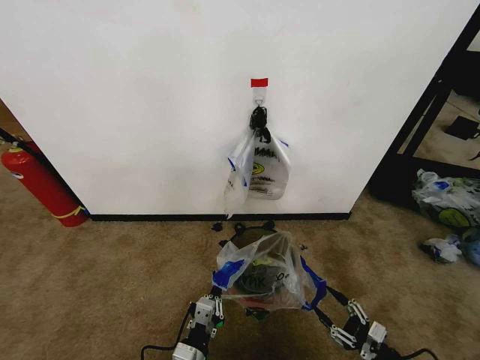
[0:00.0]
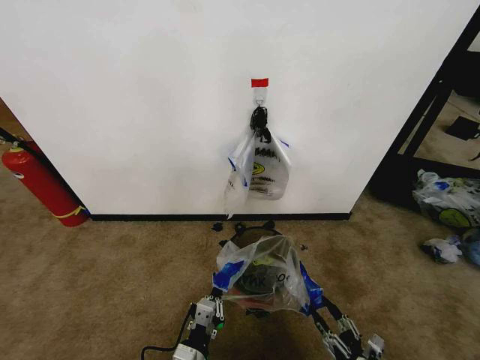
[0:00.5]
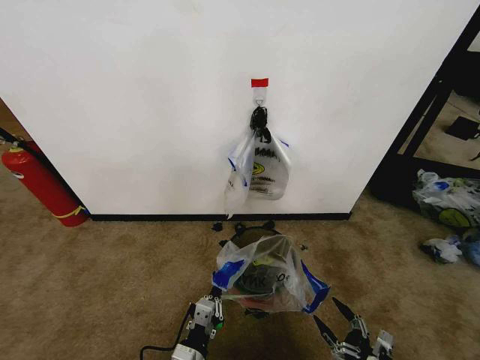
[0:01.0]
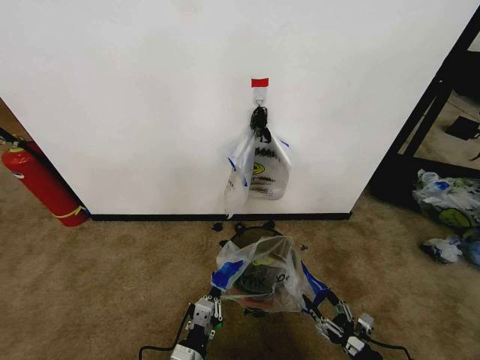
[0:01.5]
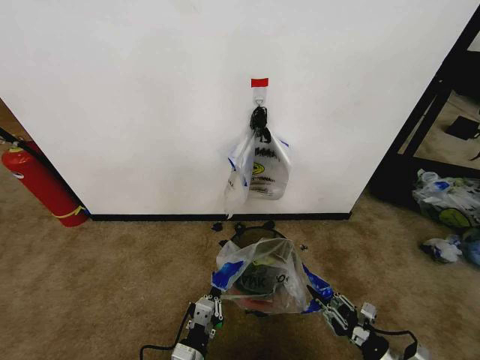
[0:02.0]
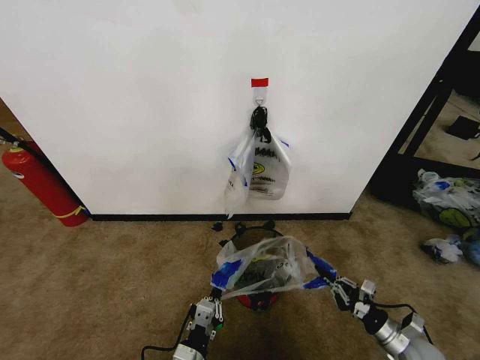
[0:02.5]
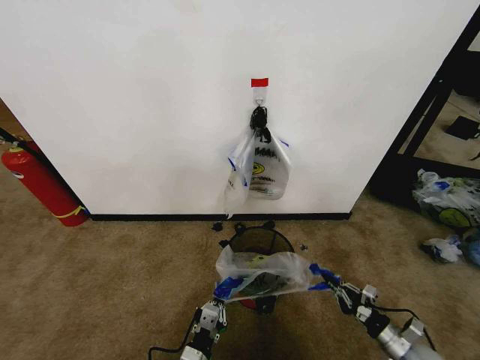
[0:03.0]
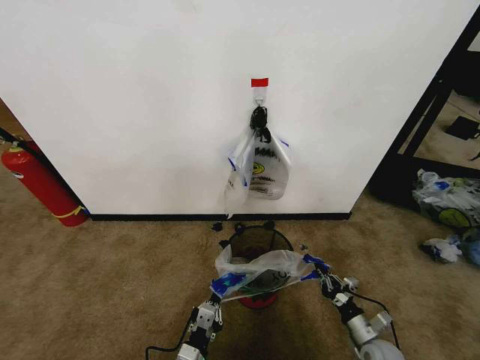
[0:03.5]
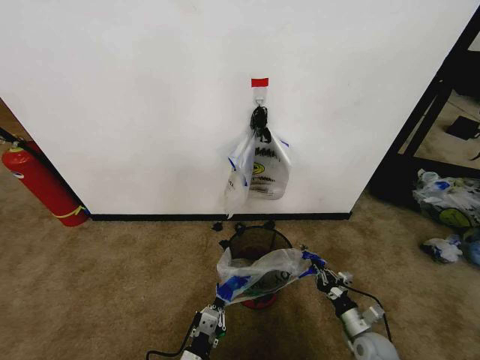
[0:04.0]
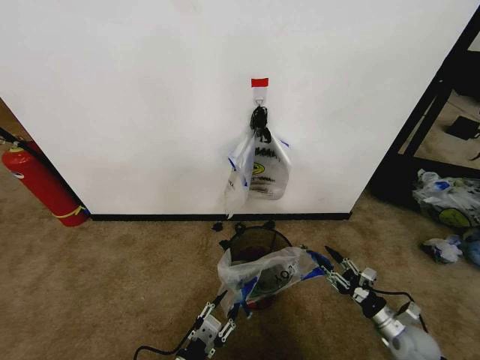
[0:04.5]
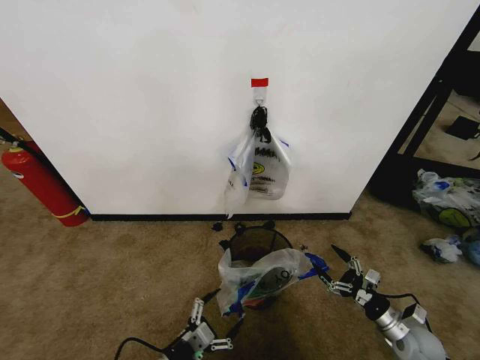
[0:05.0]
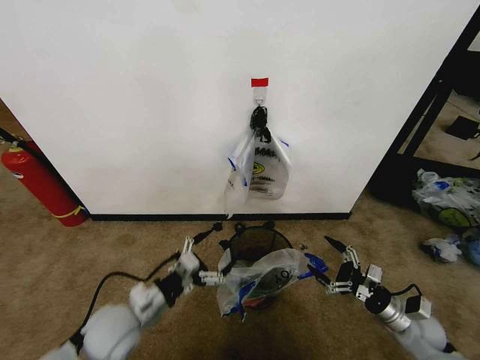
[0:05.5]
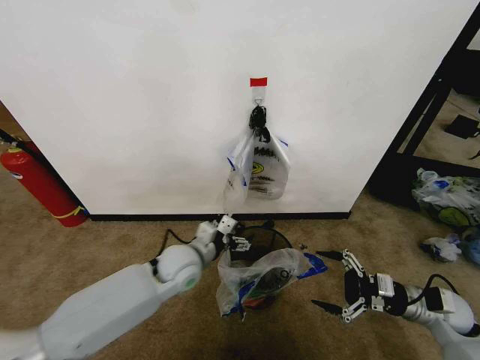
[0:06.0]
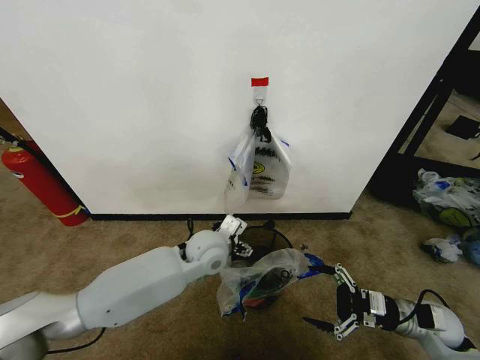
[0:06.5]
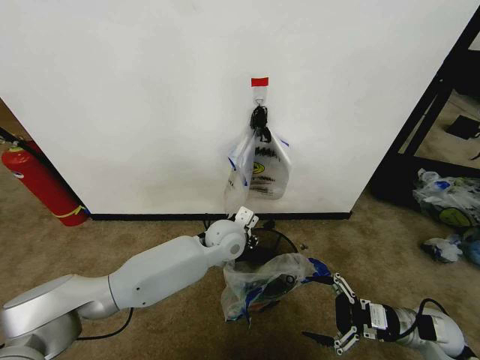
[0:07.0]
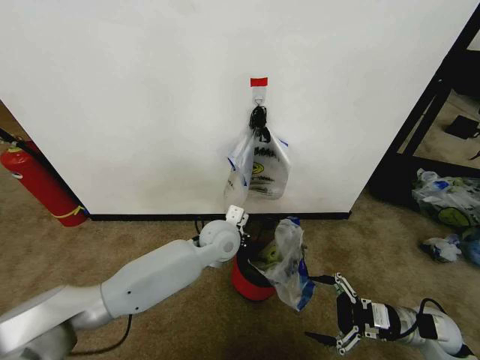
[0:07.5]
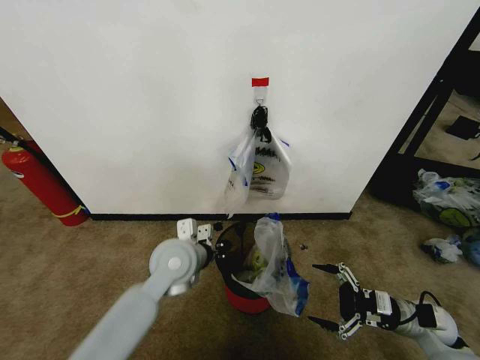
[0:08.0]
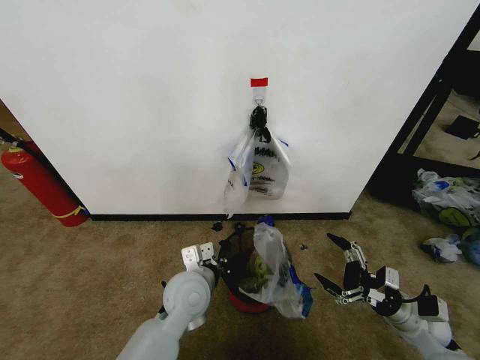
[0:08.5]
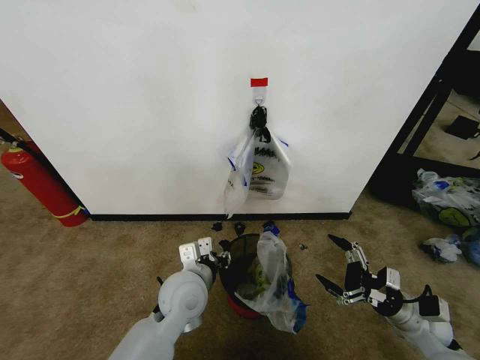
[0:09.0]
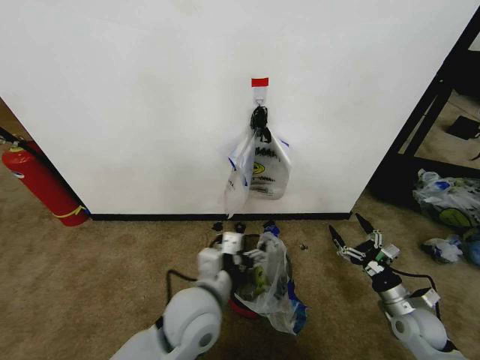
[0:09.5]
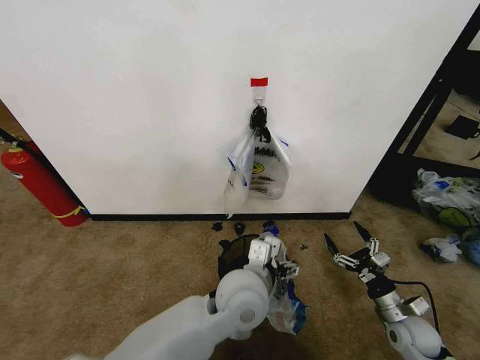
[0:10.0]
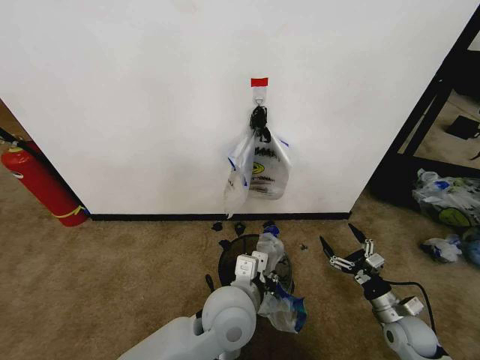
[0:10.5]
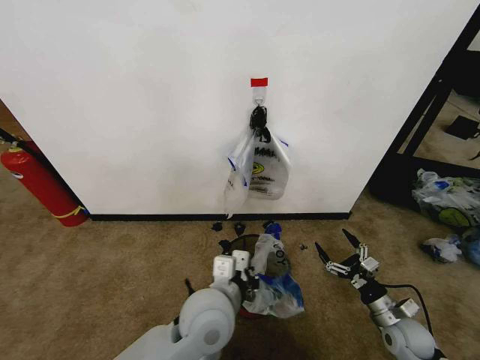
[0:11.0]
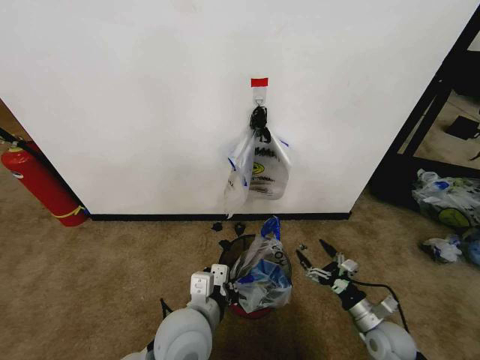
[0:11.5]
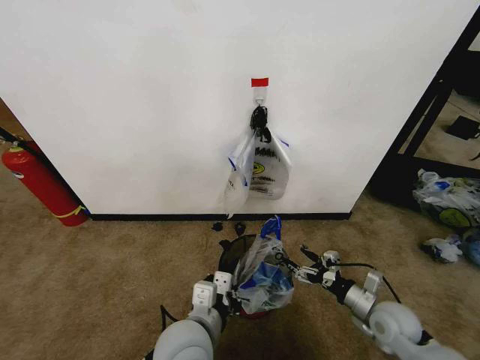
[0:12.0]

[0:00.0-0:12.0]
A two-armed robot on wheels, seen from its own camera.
Task of the whole recording: Pick up the garbage bag from the wall and place it over the trash bin.
0:00.0 to 0:02.0: The right gripper closes its fingers.
0:02.0 to 0:04.0: The right gripper moves forward and downward, approximately 10 cm.
0:04.0 to 0:06.0: The left gripper is displaced forward and upward by roughly 30 cm, and opens its fingers; the right gripper moves upward and to the right, approximately 20 cm, and opens up.
0:06.0 to 0:08.0: The left gripper shifts roughly 5 cm upward, travels to the right and back again, about 10 cm each way, and closes up.
0:08.0 to 0:10.0: The right gripper changes place by about 5 cm, while the left gripper is displaced to the right and backward by approximately 15 cm, and opens up.
0:10.0 to 0:12.0: The left gripper moves to the left and backward, about 10 cm, and closes; the right gripper moves to the left, approximately 5 cm.

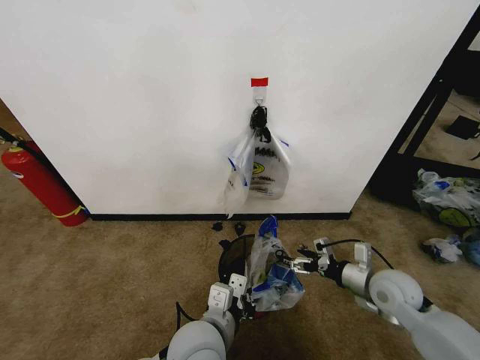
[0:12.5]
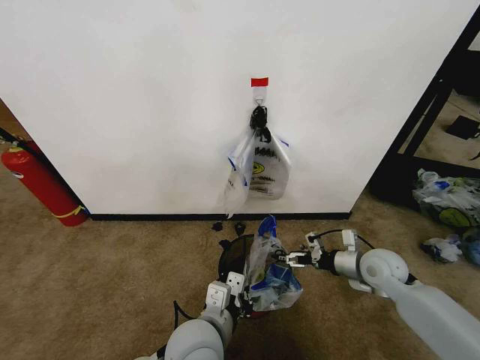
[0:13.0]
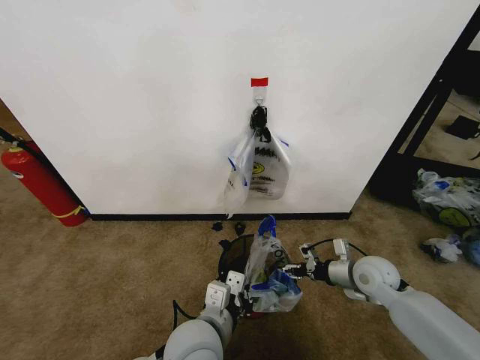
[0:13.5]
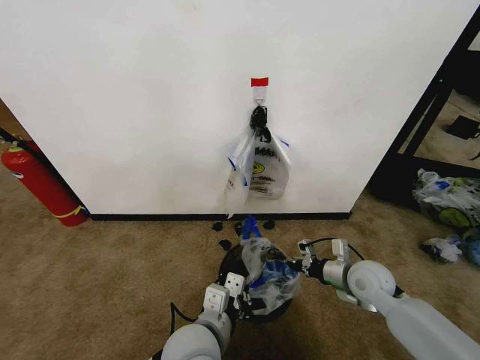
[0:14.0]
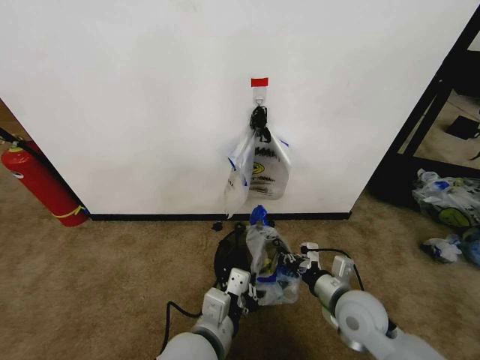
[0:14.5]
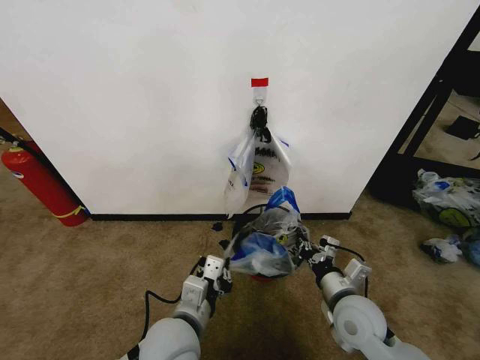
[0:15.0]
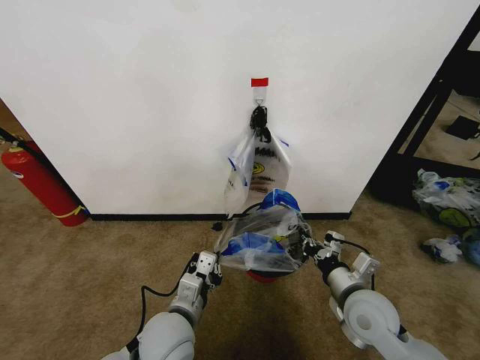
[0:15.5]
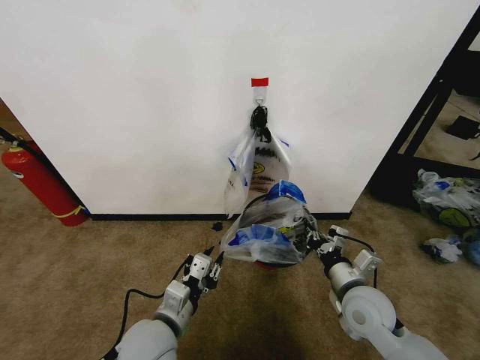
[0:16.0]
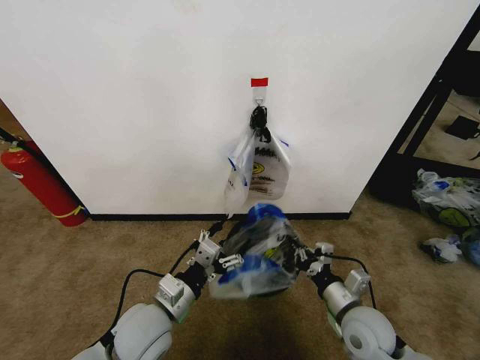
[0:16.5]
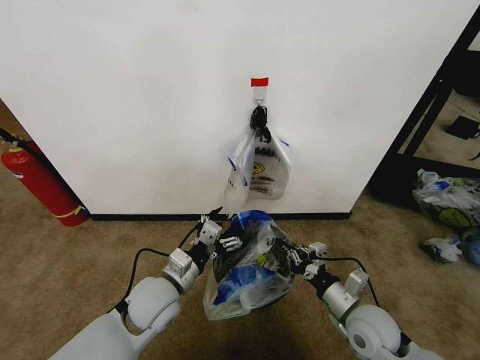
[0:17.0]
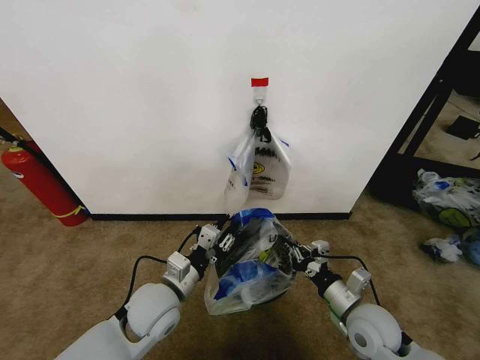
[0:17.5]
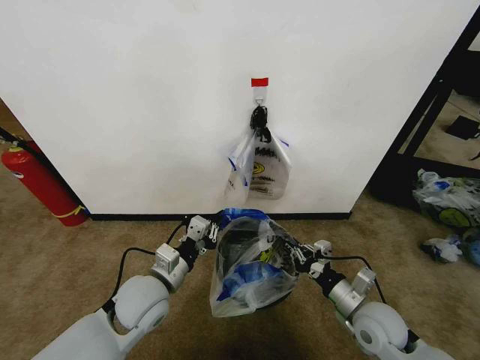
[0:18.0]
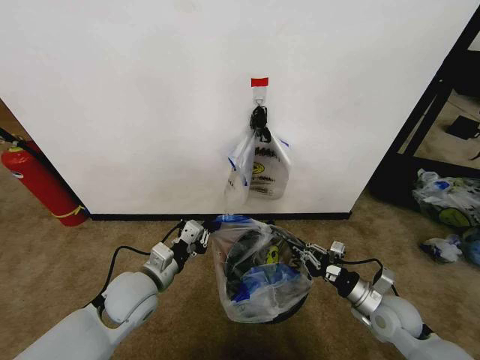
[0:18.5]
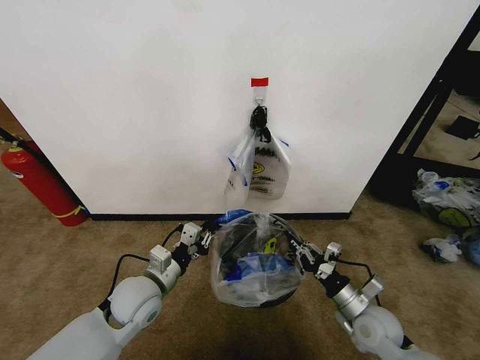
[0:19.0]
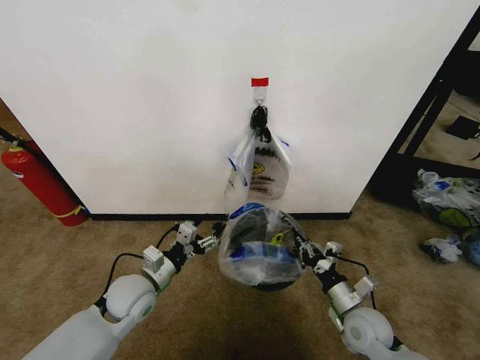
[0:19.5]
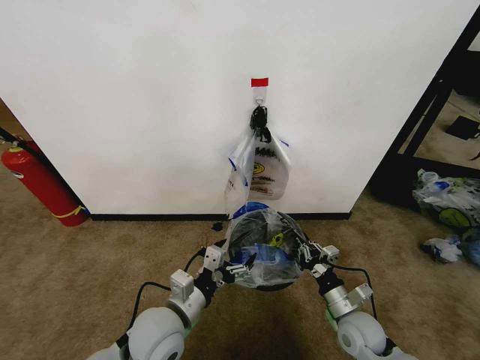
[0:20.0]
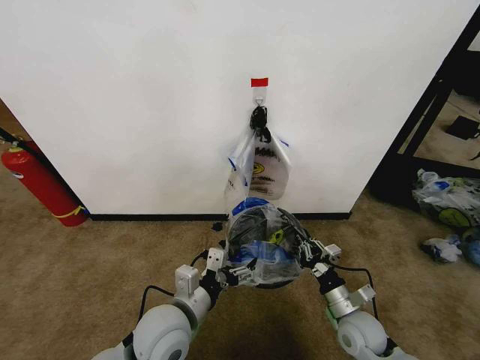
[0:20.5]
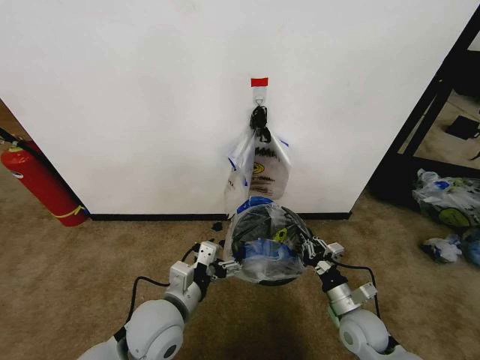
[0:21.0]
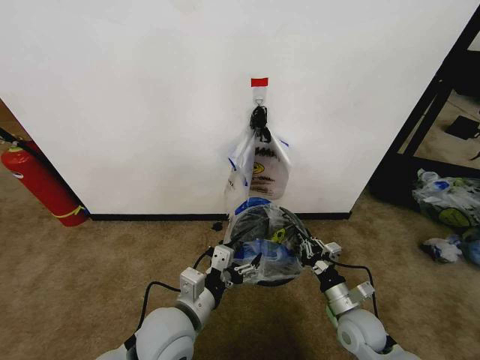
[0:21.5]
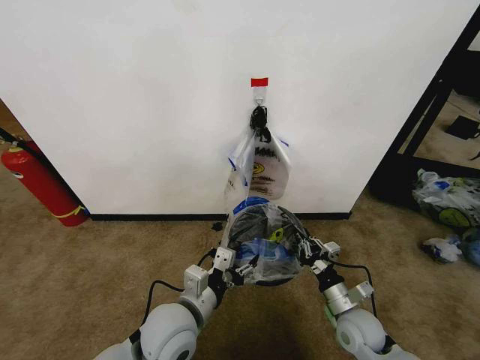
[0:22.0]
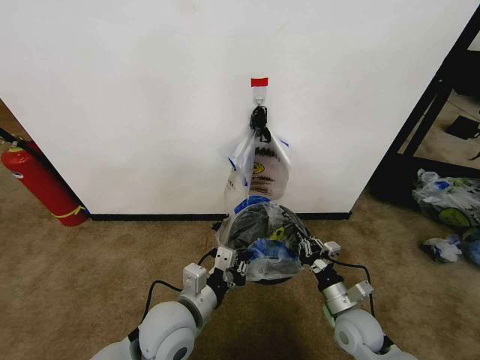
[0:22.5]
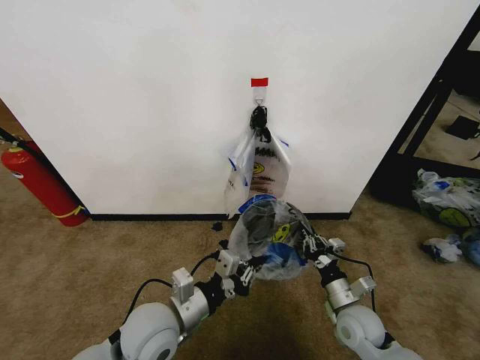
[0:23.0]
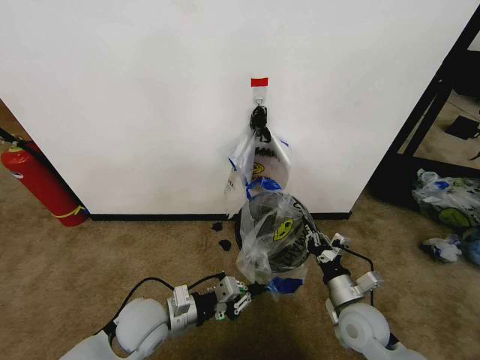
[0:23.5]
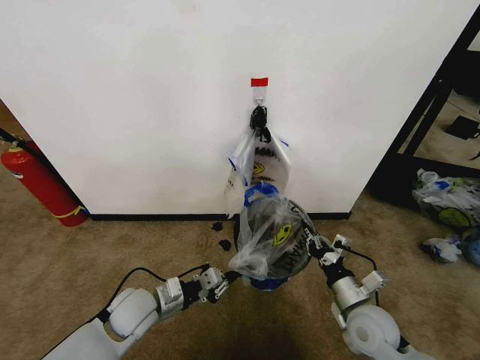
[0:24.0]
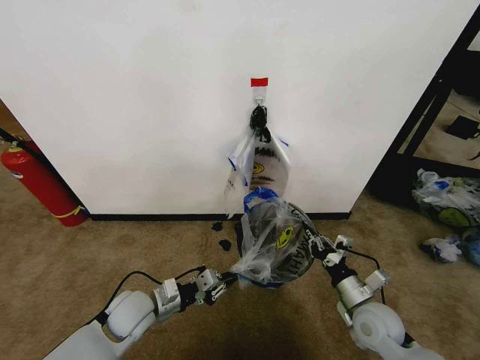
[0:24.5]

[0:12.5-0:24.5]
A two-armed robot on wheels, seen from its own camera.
Task of the whole recording: Pick up the garbage bag from the wall and place it over the trash bin.
0:12.5 to 0:14.5: The right gripper travels to the left by roughly 10 cm, and closes its fingers.
0:14.5 to 0:16.5: The left gripper heads to the left and forward, covering some 10 cm, and opens.
0:16.5 to 0:18.5: The left gripper heads forward, covering some 5 cm, and closes, while the right gripper travels to the right by roughly 10 cm.
0:18.5 to 0:20.5: The left gripper goes roughly 10 cm to the right and backward, and opens up; the right gripper heads to the left, covering approximately 5 cm.
0:20.5 to 0:22.5: The left gripper closes.
0:22.5 to 0:24.5: The left gripper is displaced to the left, downward and forward by approximately 15 cm.

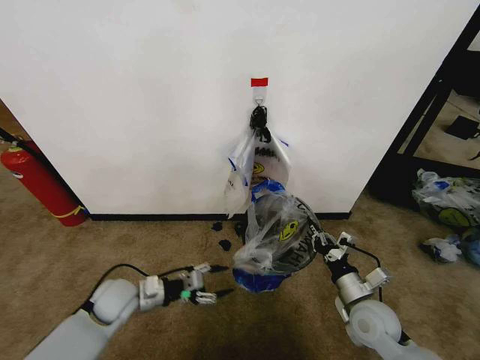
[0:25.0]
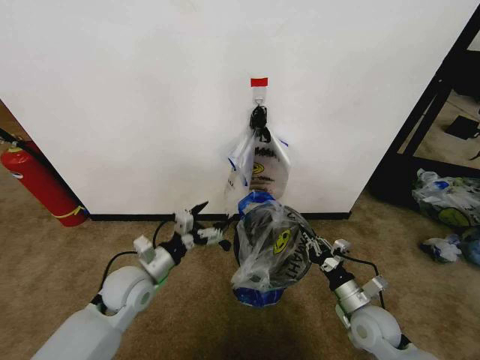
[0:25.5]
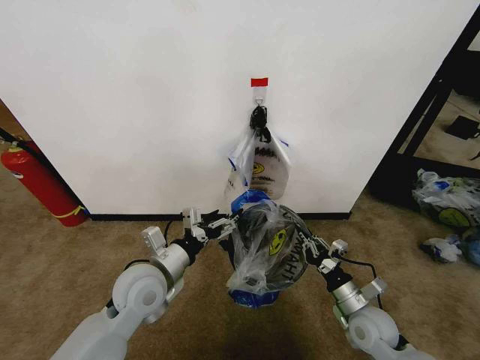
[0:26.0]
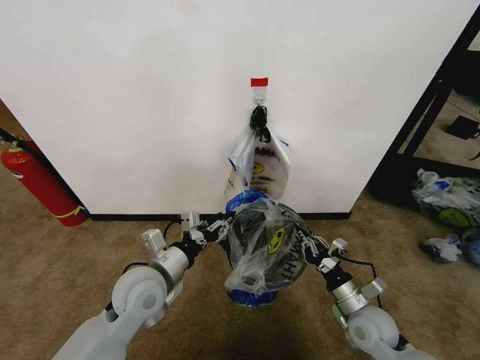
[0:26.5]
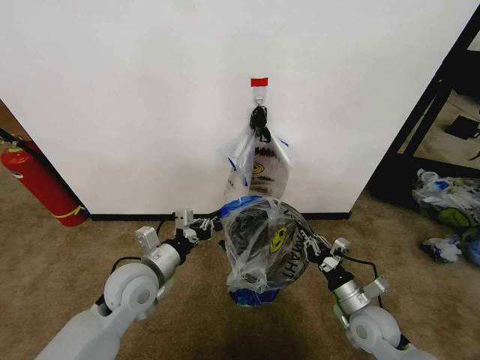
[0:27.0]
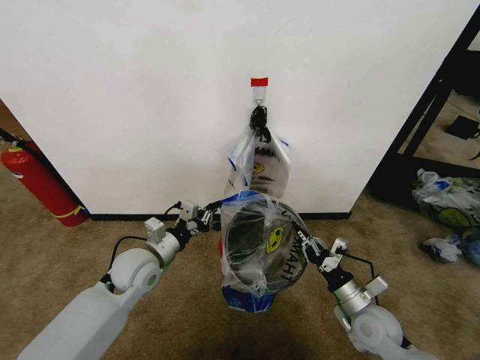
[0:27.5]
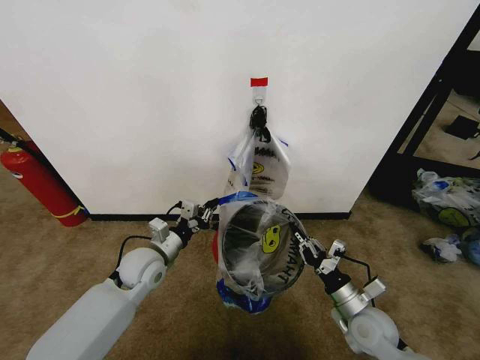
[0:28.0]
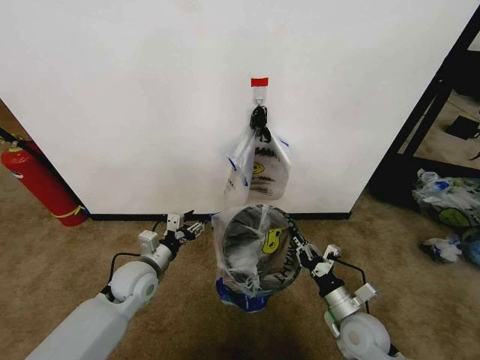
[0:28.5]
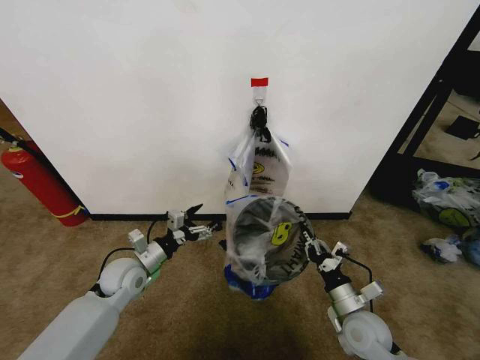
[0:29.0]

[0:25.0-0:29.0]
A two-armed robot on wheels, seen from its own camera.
Task of the whole recording: Pick up the garbage bag from the wall and place it over the trash bin.
0:25.0 to 0:27.0: The left gripper travels upward and to the right by some 15 cm, and closes.
0:27.0 to 0:29.0: The left gripper is displaced downward, to the left and forward by about 10 cm, and opens its fingers.
